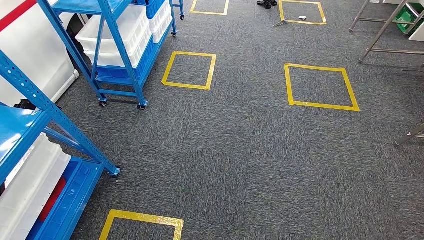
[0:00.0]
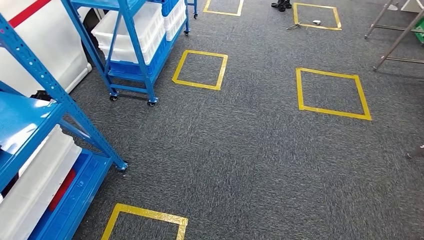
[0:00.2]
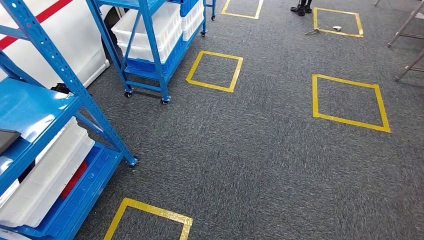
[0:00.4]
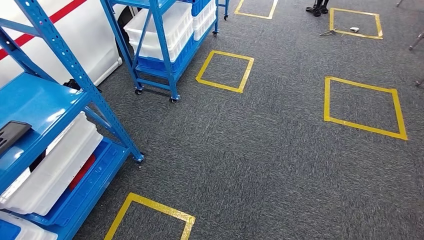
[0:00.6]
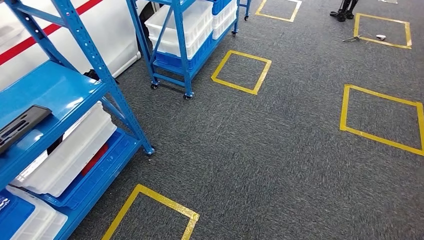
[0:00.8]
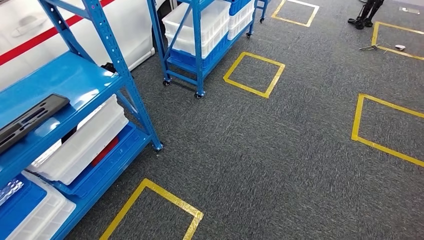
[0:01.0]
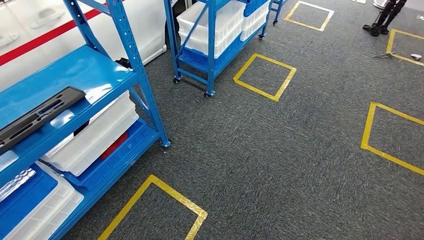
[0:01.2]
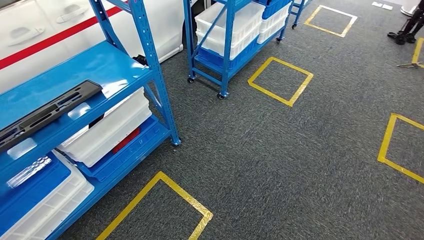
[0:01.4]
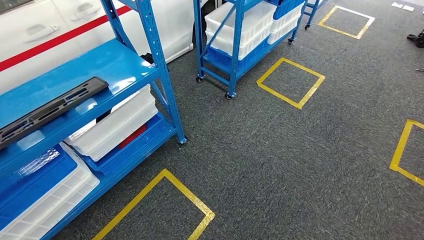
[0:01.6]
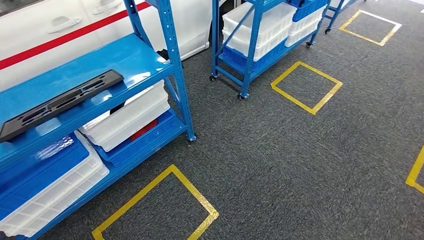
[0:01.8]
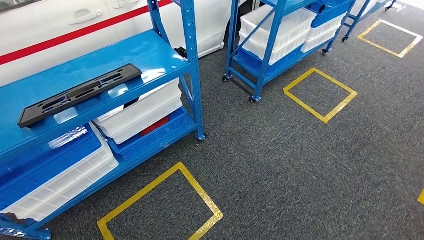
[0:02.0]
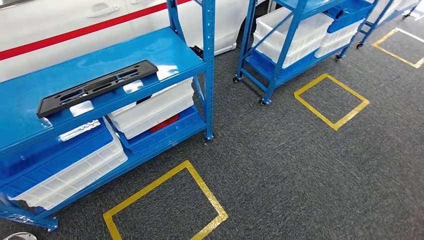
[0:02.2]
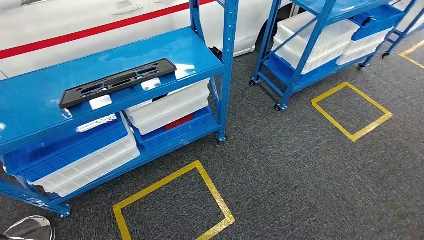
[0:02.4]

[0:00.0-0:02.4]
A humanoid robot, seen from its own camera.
Step, 0:00.0 to 0:02.2: Return to the initial position at the shelf.
